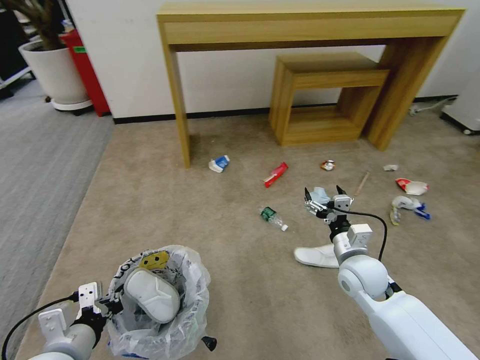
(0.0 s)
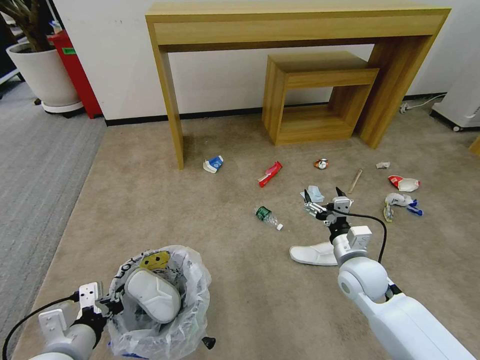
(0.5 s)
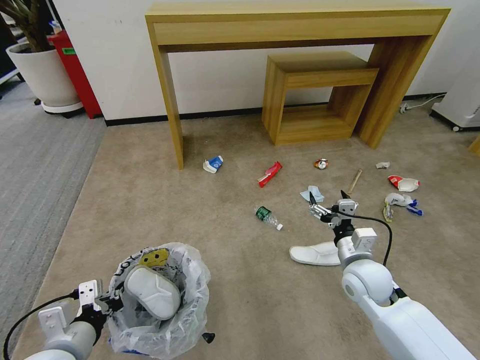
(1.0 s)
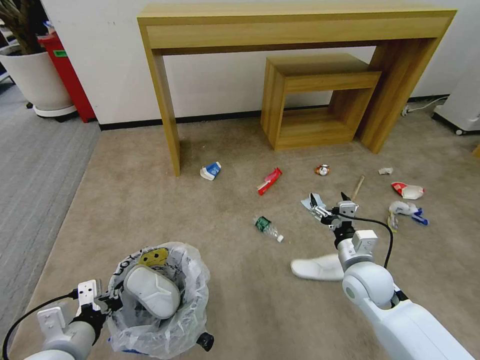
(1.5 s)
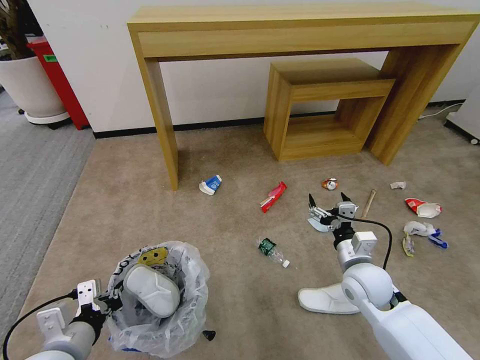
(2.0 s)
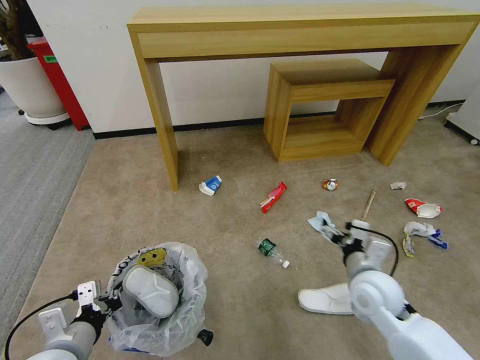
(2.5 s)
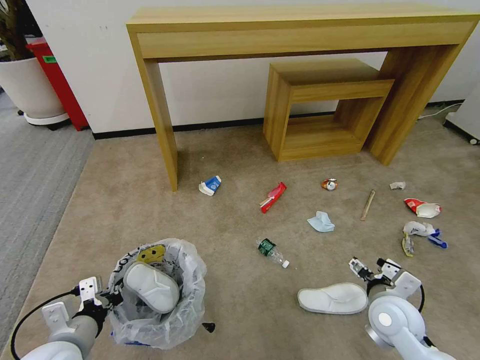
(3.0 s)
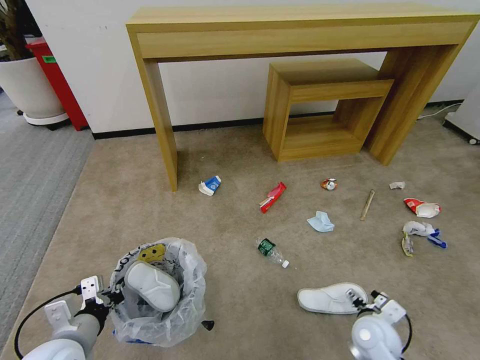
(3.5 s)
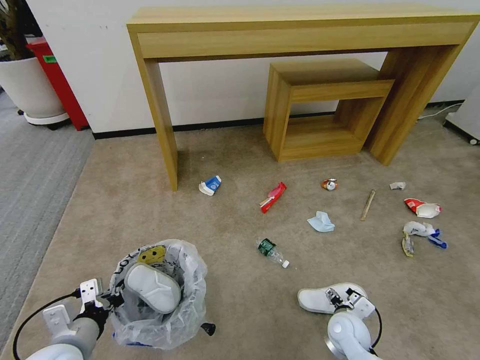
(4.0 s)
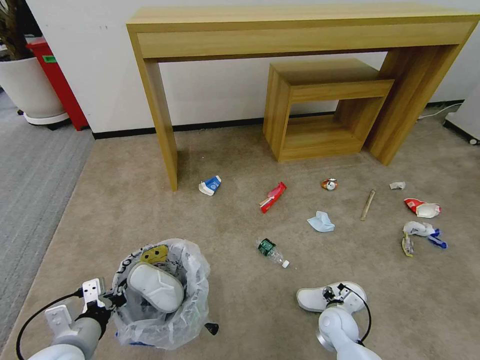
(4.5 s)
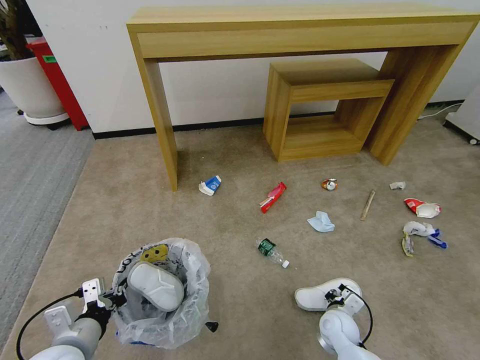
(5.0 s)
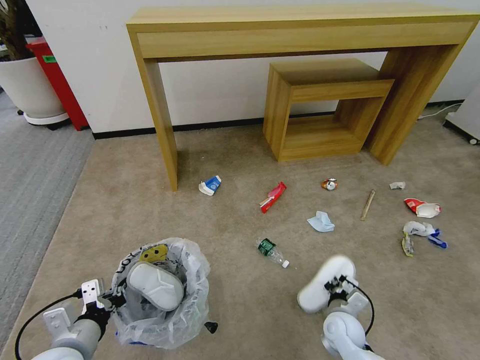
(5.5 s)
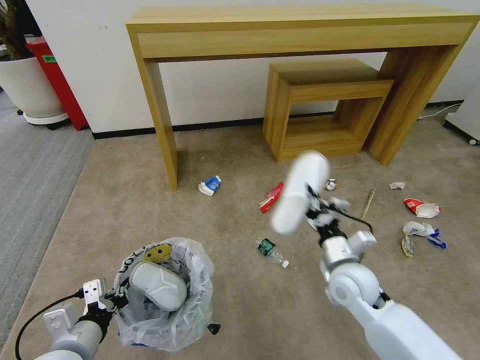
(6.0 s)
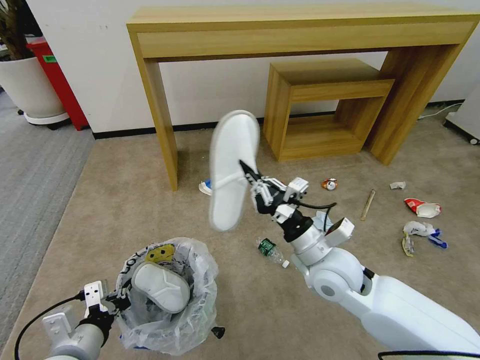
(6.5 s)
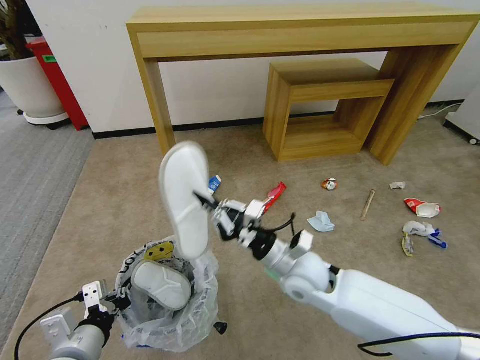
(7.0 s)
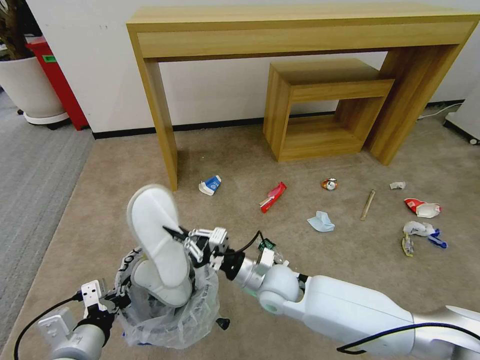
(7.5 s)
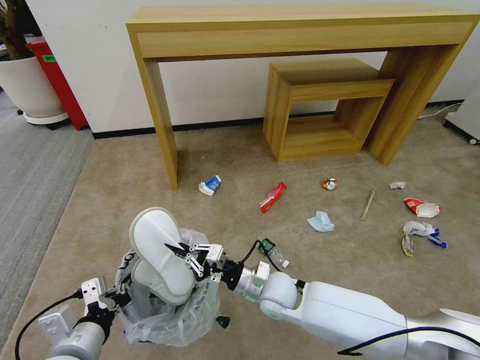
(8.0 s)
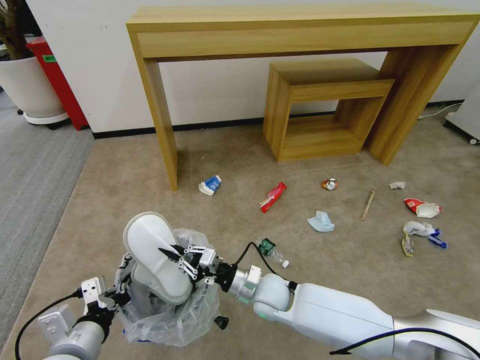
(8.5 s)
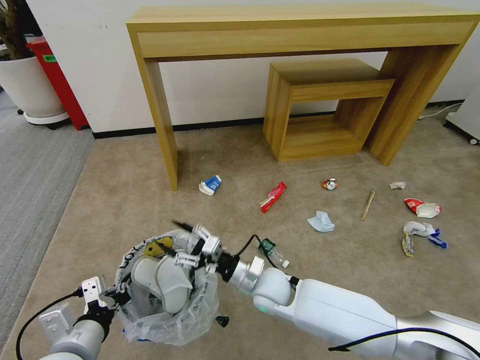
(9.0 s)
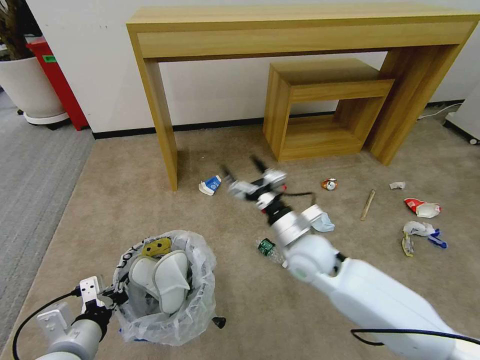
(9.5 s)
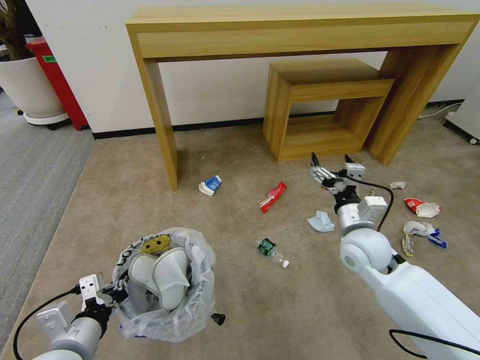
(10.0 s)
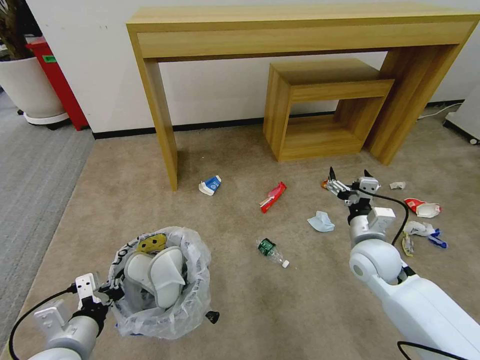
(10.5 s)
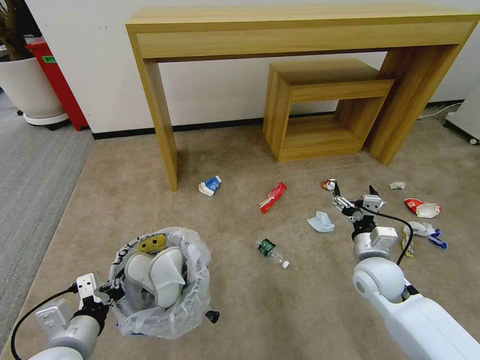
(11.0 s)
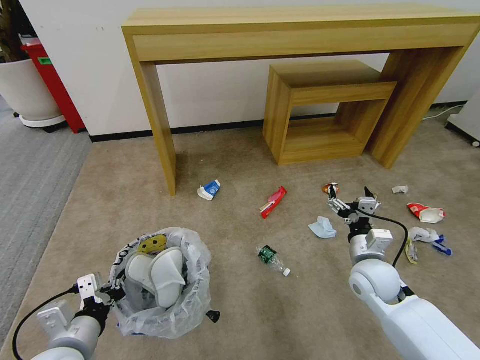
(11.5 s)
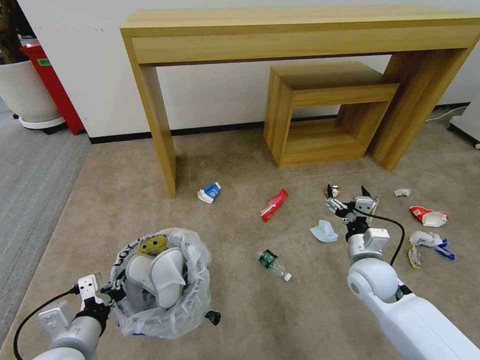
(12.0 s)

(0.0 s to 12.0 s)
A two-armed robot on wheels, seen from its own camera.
Task of the whole recording: Pick up the trash bin and place the garbage on the floor into it.
2.0 s - 4.0 s: The right gripper heads downward, covering roughly 15 cm.
4.0 s - 6.0 s: The right gripper travels upward by some 20 cm, and closes.
6.0 s - 8.0 s: The right gripper is displaced to the left and downward by some 15 cm.
8.0 s - 10.0 s: The right gripper moves to the right and upward, about 20 cm, and opens.
10.0 s - 12.0 s: The right gripper shifts approximately 5 cm downward.

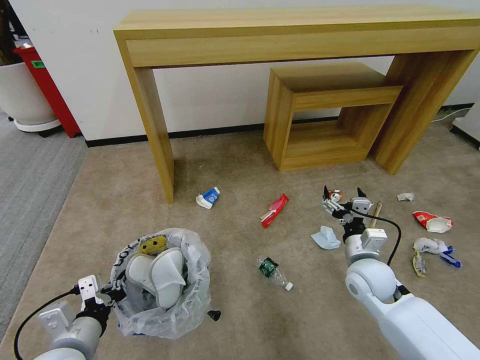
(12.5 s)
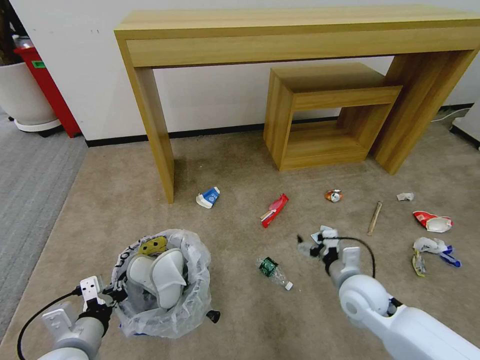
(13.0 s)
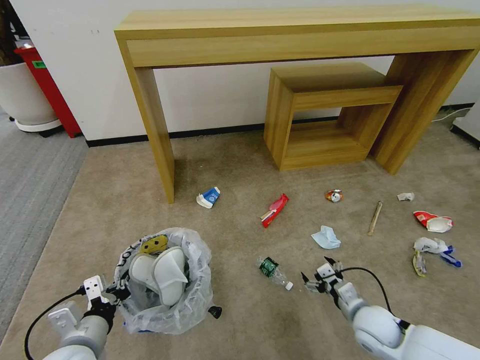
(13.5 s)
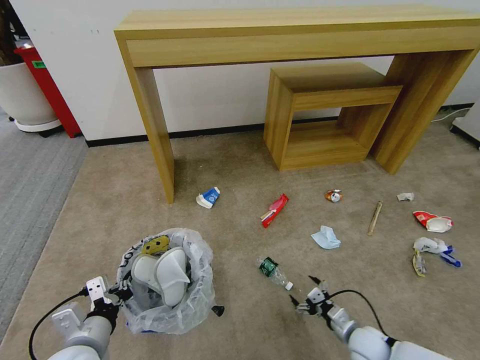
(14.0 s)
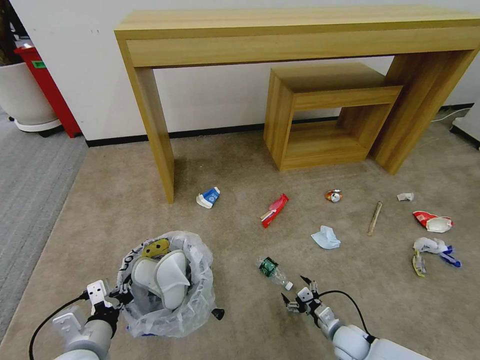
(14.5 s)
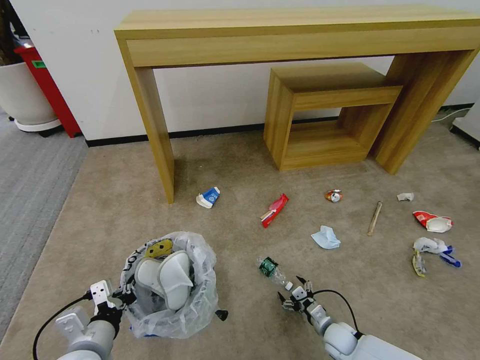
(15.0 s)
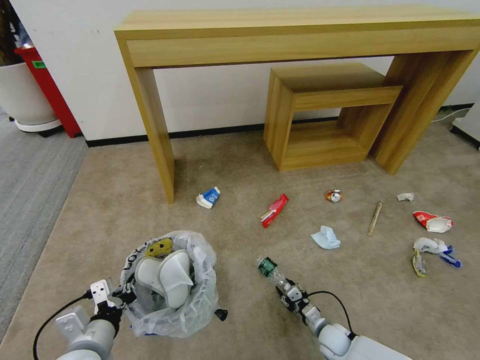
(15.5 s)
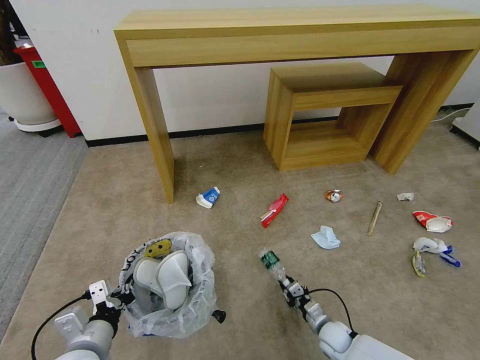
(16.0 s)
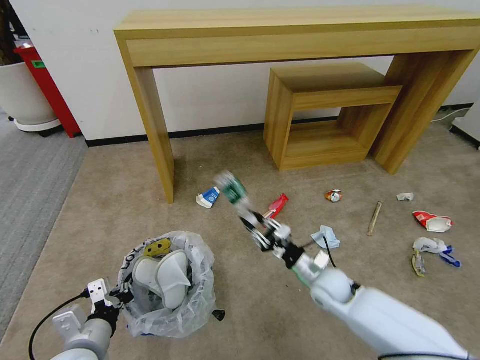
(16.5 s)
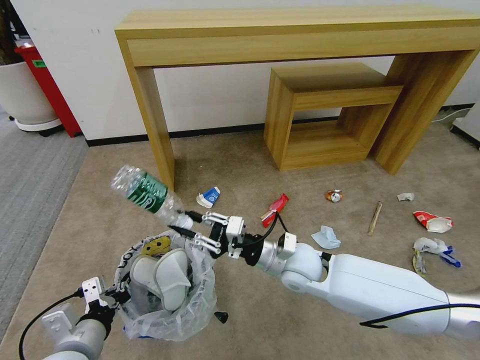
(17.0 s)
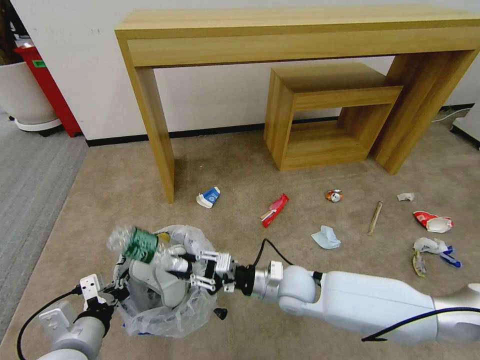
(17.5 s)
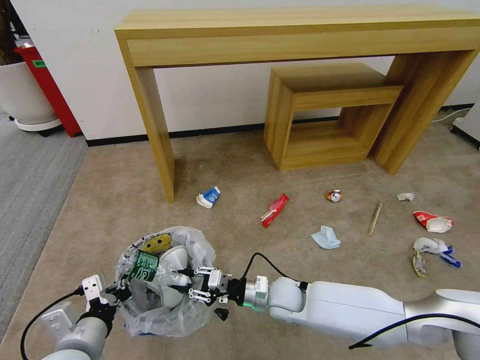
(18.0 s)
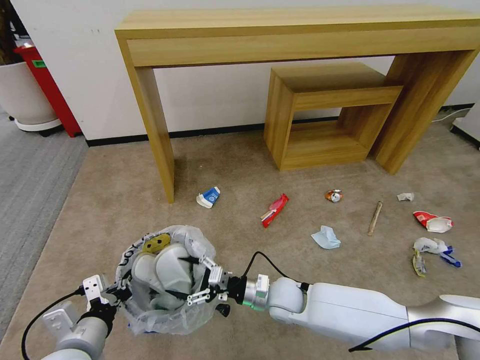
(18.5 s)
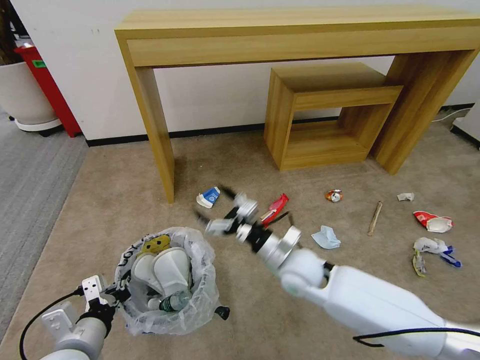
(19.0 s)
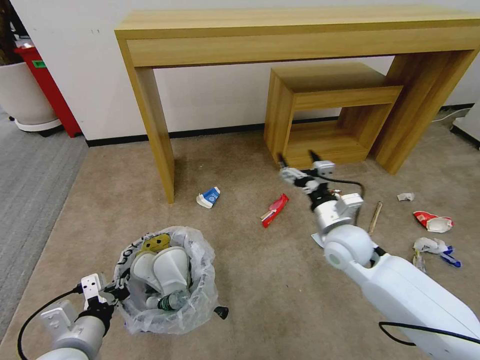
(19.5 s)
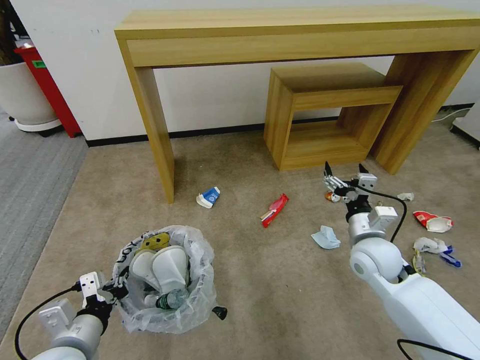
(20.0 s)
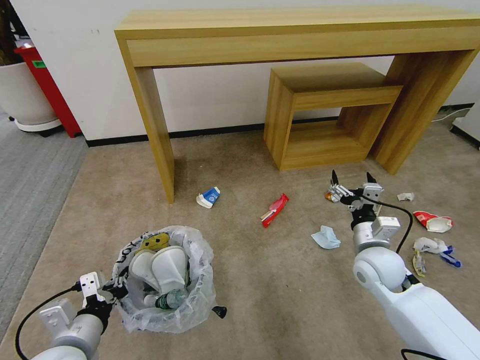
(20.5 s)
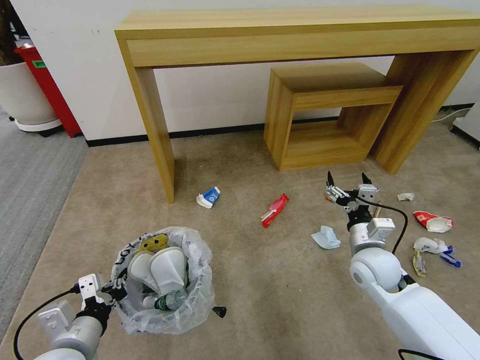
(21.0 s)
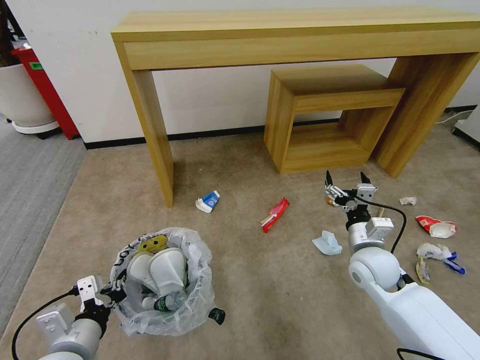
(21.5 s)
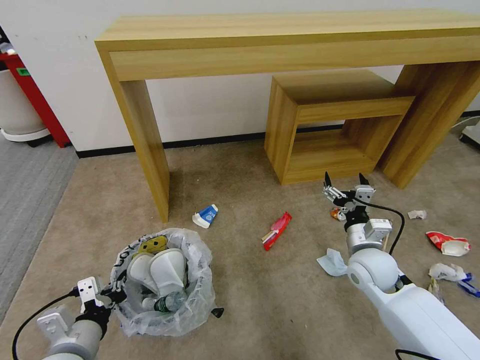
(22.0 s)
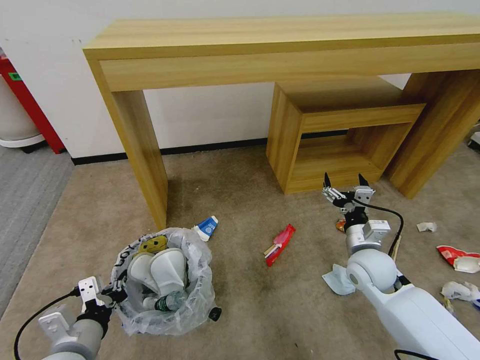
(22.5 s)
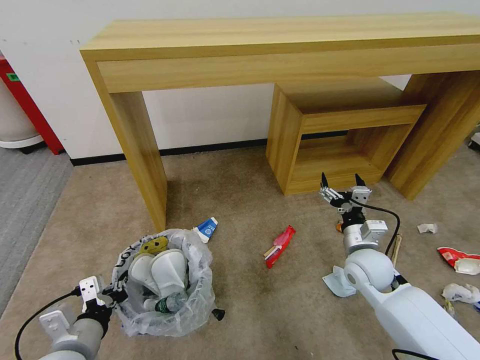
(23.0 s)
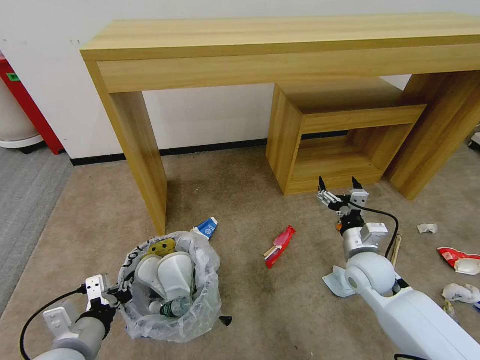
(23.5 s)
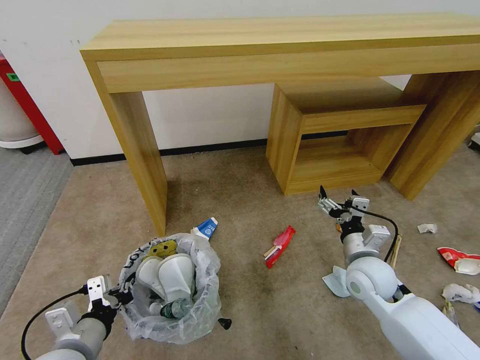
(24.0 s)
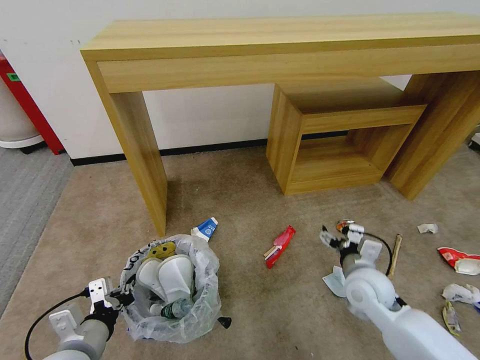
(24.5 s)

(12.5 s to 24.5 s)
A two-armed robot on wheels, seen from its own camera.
Task of the whole recording: Pick up the trash bin and place the garbage on the floor into it.
12.5 s - 14.5 s: The right gripper moves downward, approximately 25 cm.
14.5 s - 16.5 s: The right gripper travels upward, forward and to the left by approximately 20 cm, and closes up.
16.5 s - 18.5 s: The right gripper heads to the left, covering roughly 10 cm, travels upward and back again, roughly 10 cm each way, and opens up.
18.5 s - 20.5 s: The right gripper is displaced to the right and upward by approximately 20 cm.

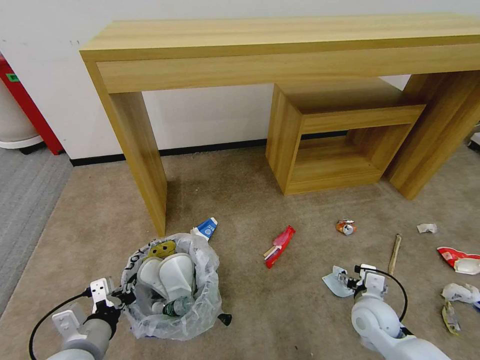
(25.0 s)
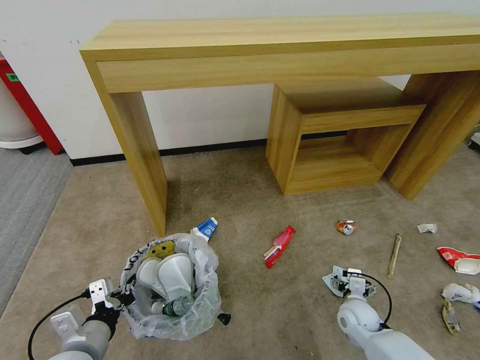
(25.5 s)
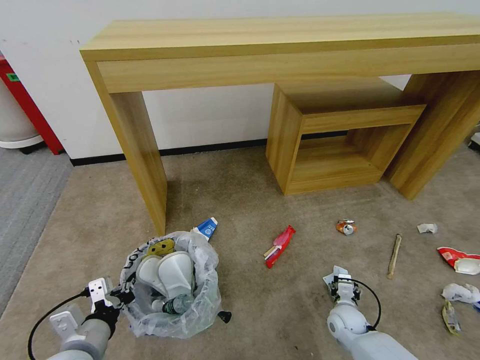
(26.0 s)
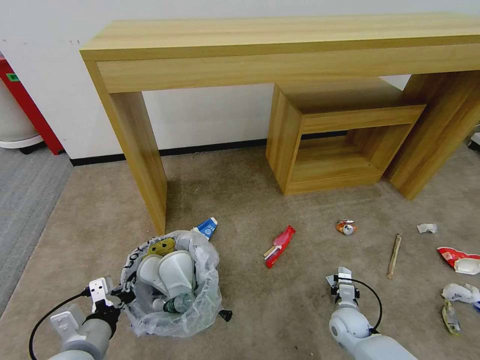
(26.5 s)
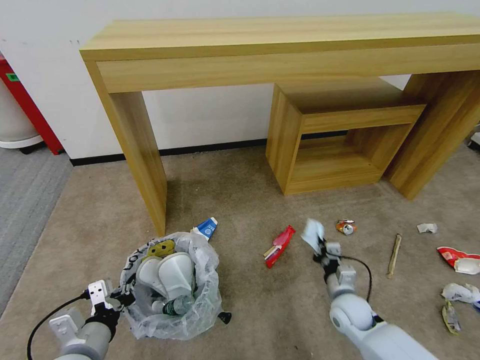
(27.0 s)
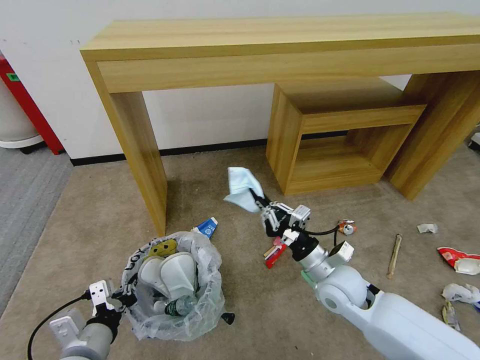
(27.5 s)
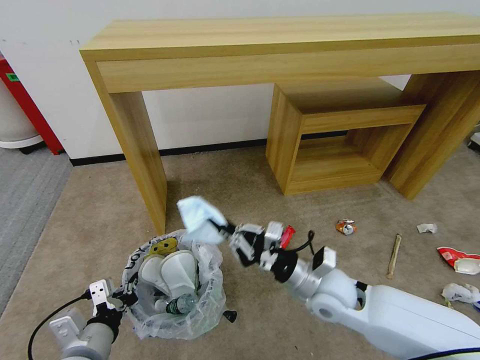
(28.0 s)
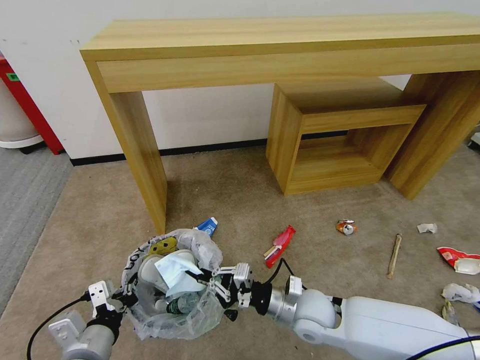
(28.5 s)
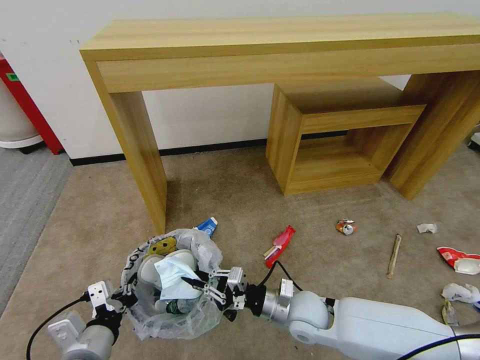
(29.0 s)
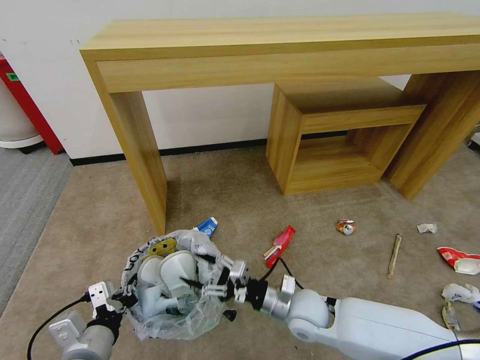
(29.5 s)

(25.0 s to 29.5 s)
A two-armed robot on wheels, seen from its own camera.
Task of the whole recording: Pick up the trash bin and place the garbage on the floor into it.
25.0 s - 27.0 s: The right gripper moves downward, some 5 cm, and closes.
27.0 s - 29.5 s: The right gripper is displaced to the left and upward by approximately 15 cm, and opens its fingers.
